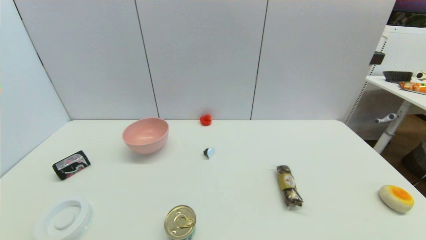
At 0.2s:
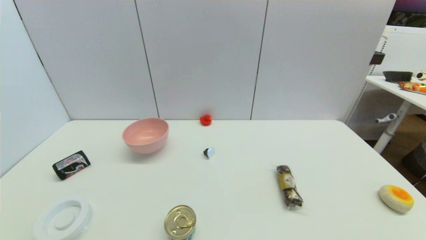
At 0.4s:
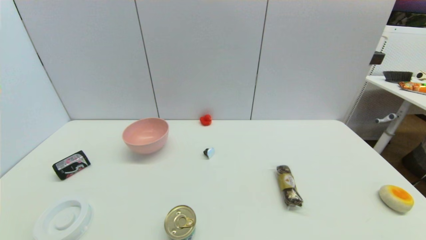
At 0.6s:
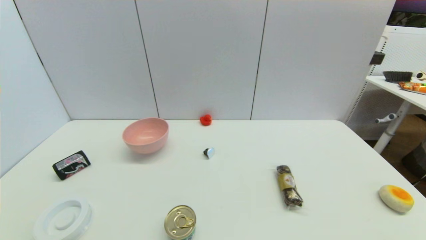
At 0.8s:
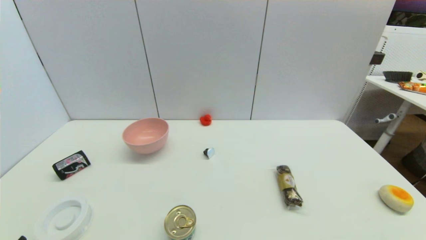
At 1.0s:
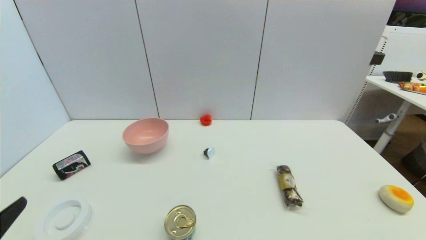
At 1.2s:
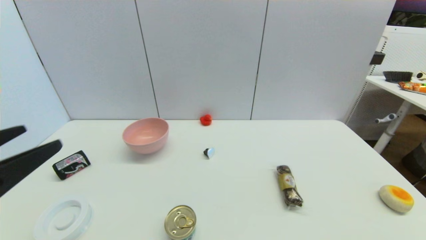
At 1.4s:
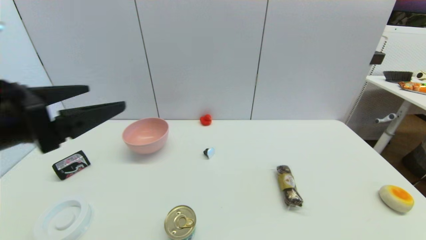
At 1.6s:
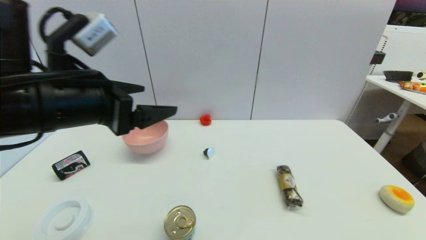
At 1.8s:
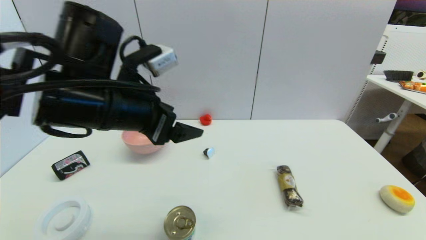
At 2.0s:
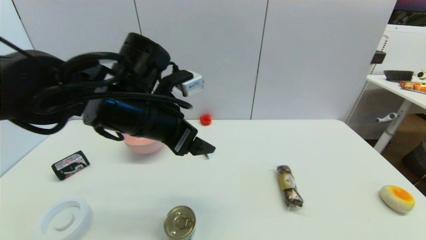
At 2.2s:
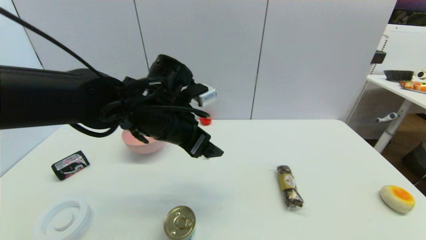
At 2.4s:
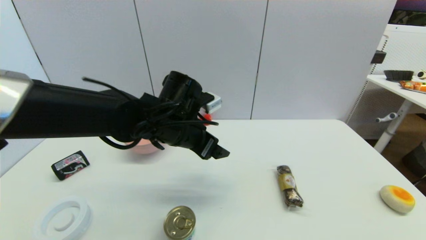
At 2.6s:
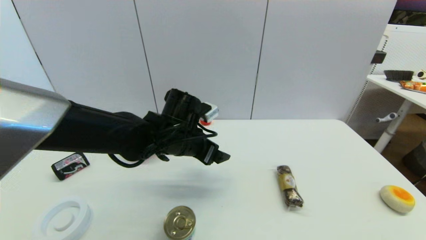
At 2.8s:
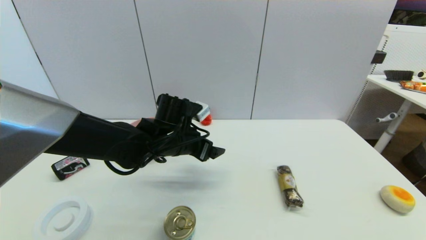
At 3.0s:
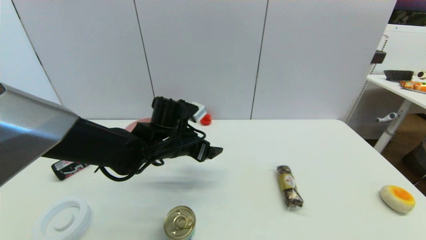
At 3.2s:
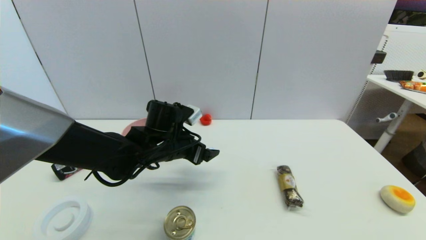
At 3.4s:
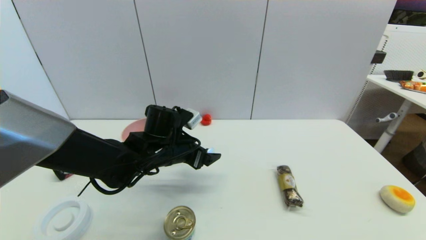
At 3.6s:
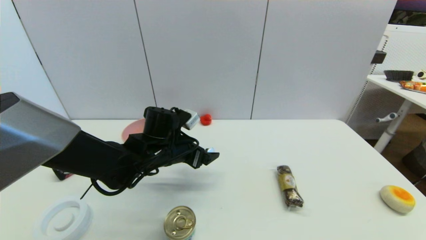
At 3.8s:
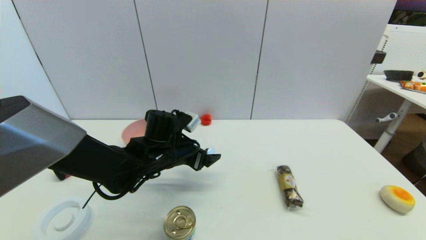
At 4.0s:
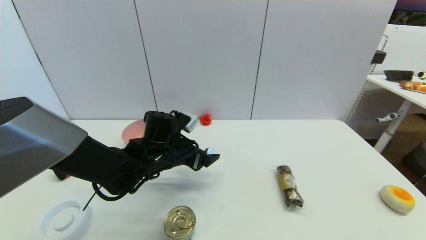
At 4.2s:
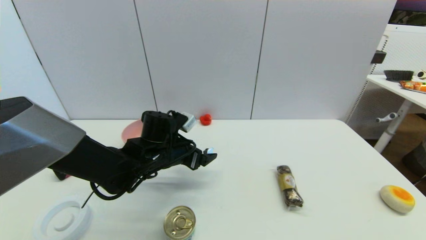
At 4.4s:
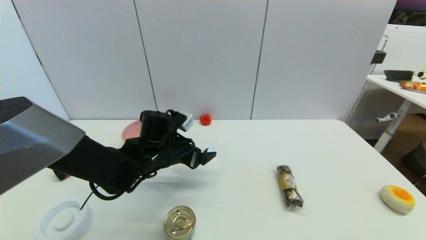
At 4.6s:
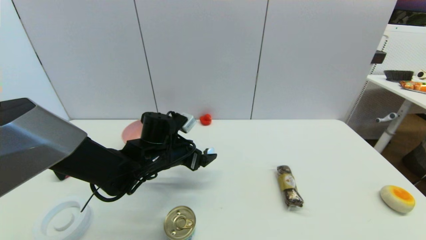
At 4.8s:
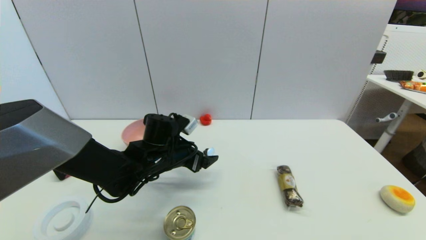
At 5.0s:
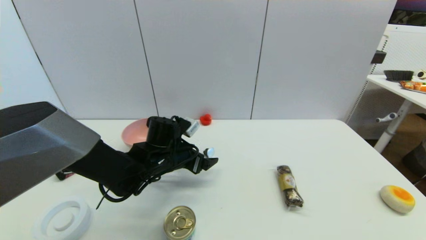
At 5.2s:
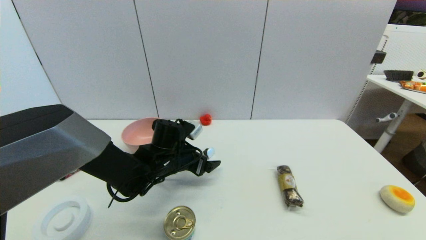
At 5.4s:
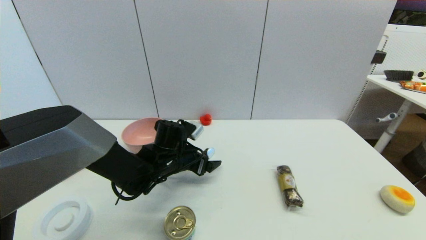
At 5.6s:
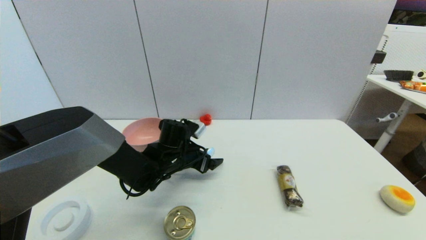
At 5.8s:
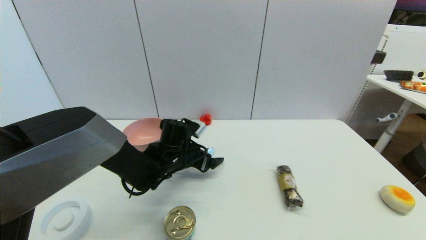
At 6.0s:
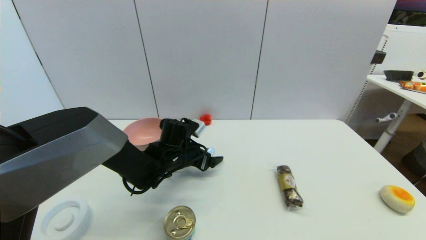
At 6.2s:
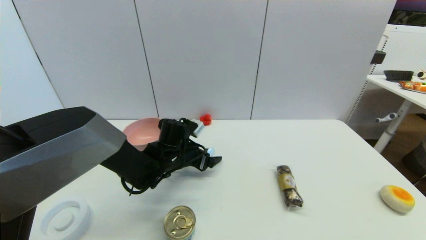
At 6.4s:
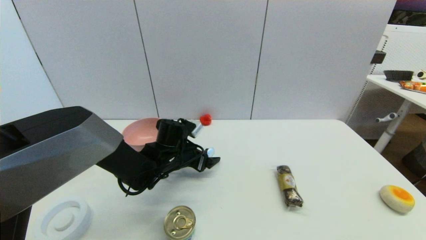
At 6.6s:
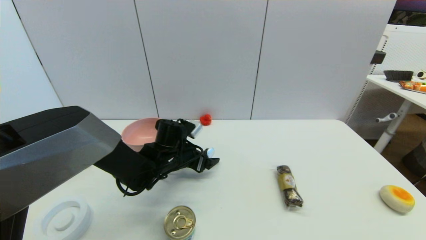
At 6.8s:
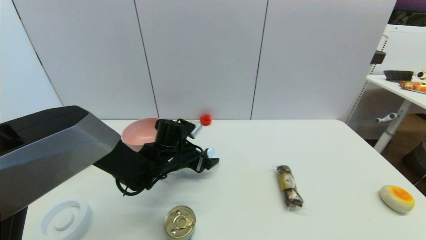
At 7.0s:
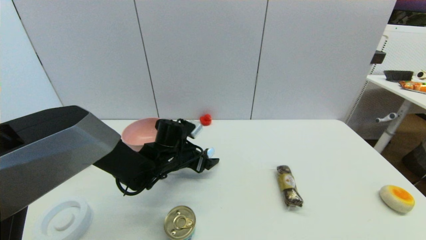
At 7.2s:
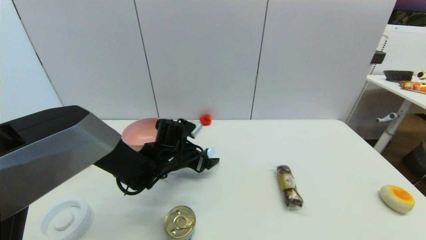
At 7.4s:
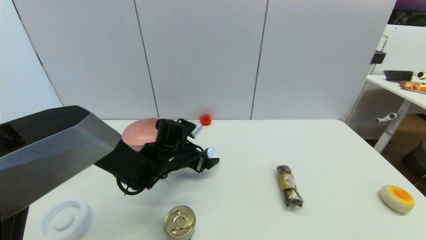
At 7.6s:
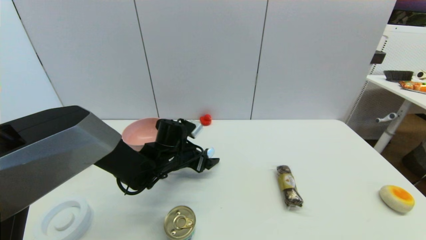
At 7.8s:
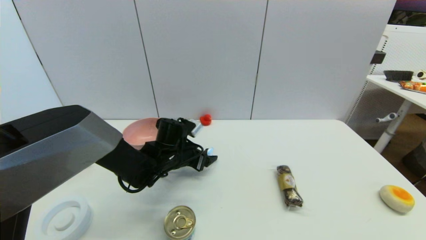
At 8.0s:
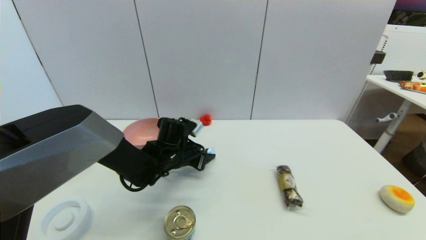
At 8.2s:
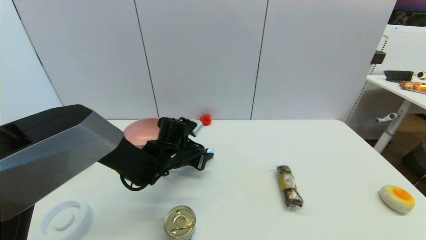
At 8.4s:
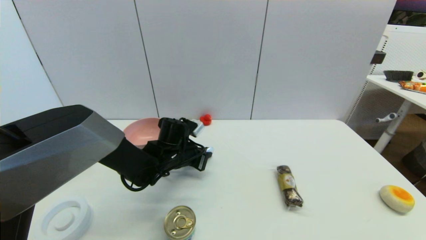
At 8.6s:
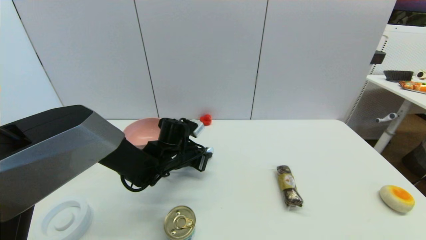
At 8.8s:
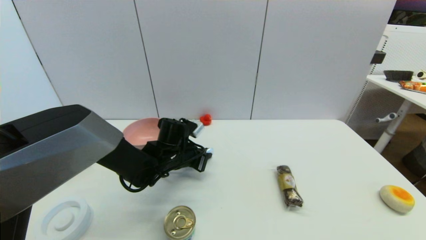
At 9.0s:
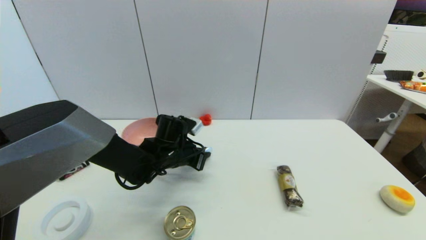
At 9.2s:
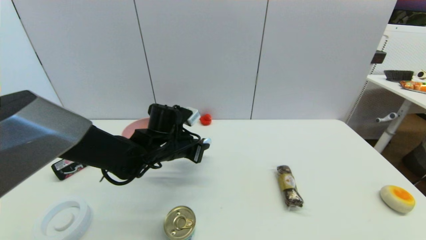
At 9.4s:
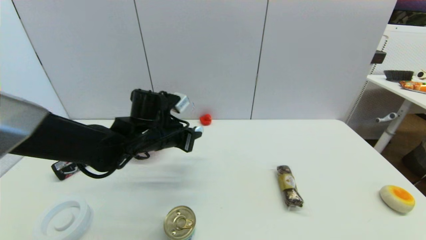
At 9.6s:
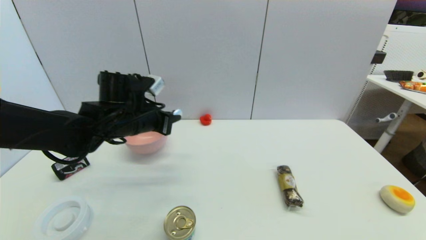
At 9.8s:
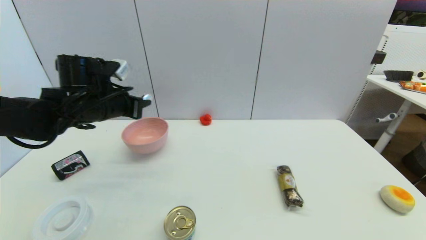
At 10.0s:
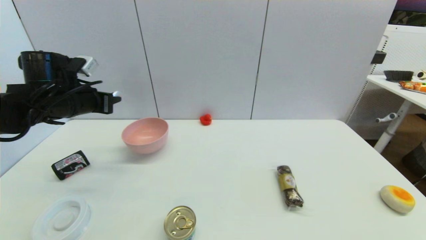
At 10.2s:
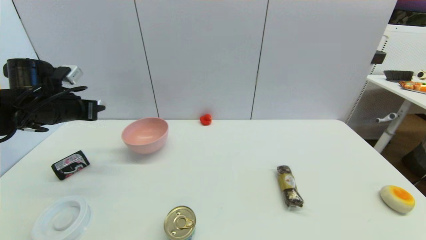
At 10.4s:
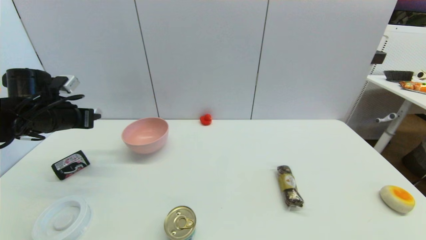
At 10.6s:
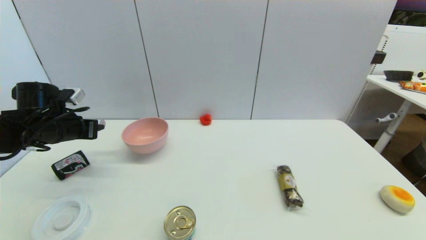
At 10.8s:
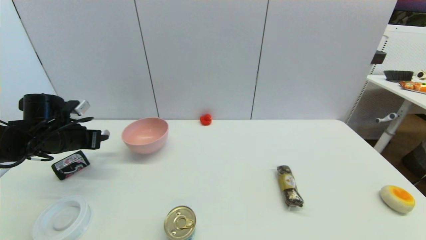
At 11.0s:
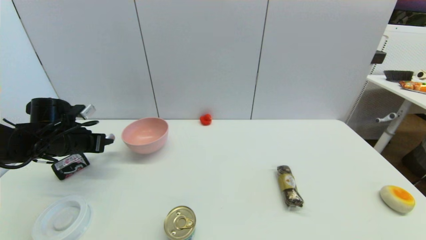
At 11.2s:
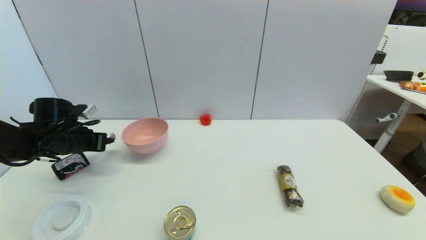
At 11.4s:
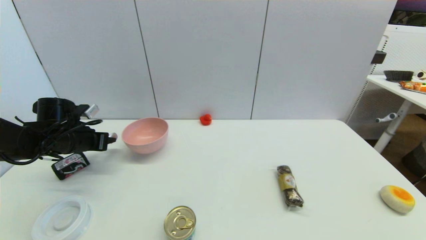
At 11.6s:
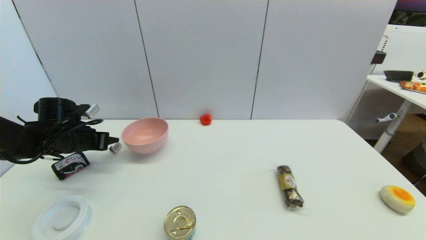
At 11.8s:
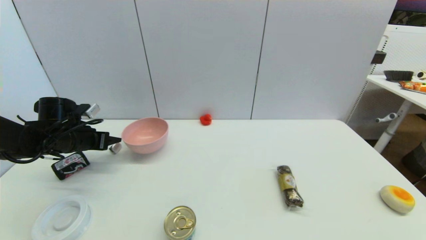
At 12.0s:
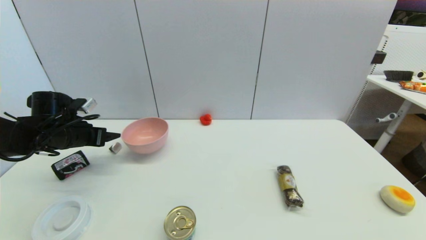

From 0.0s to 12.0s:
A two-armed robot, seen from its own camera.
Step, from 0.8s to 8.2s: Grasp the coffee capsule with left gripper.
Step, from 8.4s to 11.6s: Place the coffee capsule on the table with left gripper.
From 0.0s to 1.6s: The left gripper heads upward, forward and to the right, covering about 35 cm.
From 1.6s to 3.0s: The left gripper heads downward, forward and to the right, covering some 20 cm.
From 3.0s to 4.4s: There are only small adjustments of the grippers.
From 4.4s to 6.0s: The left gripper moves about 5 cm.
From 6.0s to 7.6s: Both grippers stay about where they are.
From 7.6s to 9.0s: The left gripper closes up.
From 9.0s to 10.4s: The left gripper is displaced to the left by about 25 cm.
From 10.4s to 12.0s: The left gripper opens.

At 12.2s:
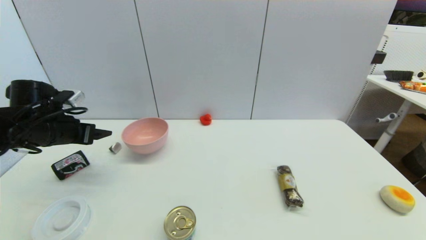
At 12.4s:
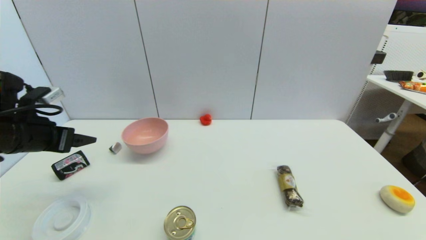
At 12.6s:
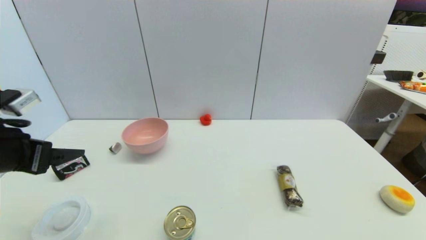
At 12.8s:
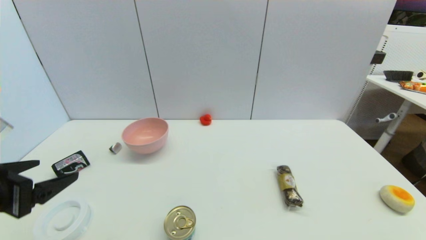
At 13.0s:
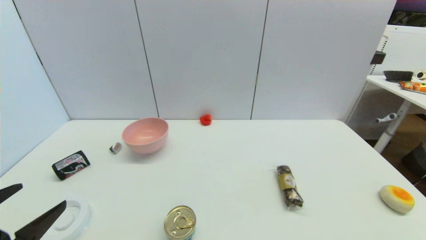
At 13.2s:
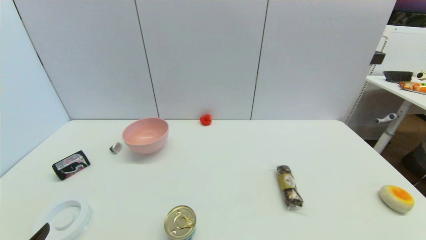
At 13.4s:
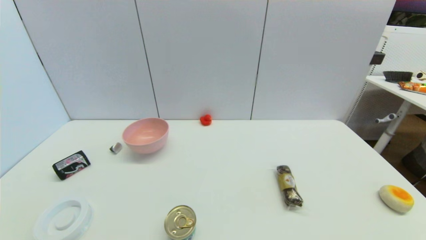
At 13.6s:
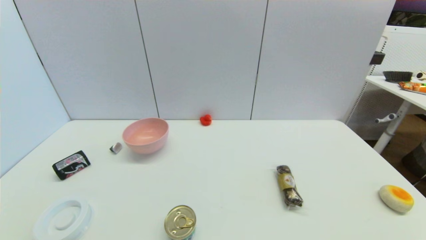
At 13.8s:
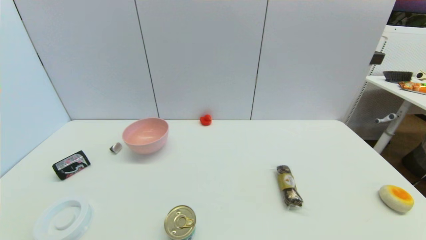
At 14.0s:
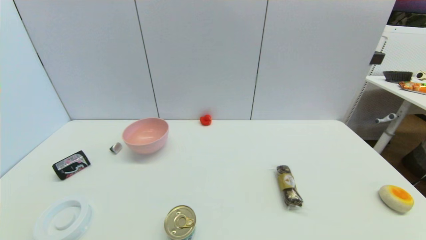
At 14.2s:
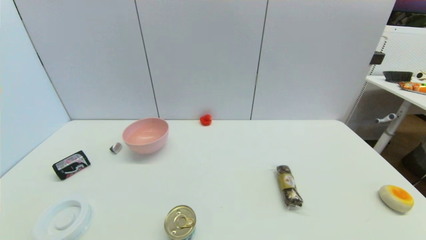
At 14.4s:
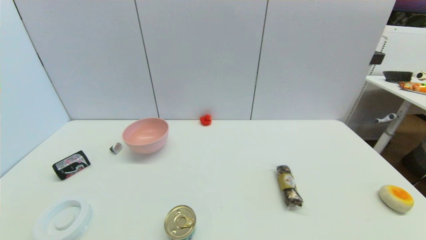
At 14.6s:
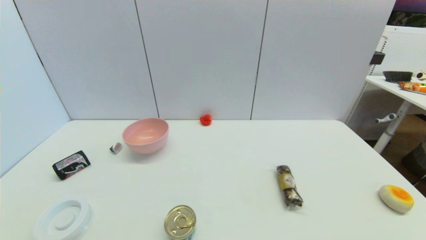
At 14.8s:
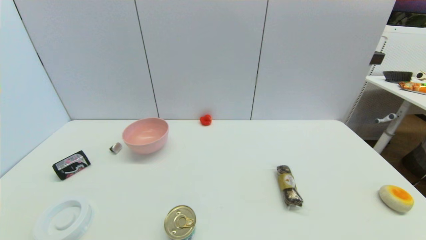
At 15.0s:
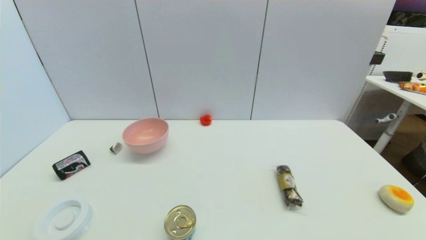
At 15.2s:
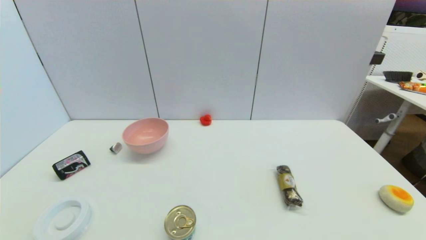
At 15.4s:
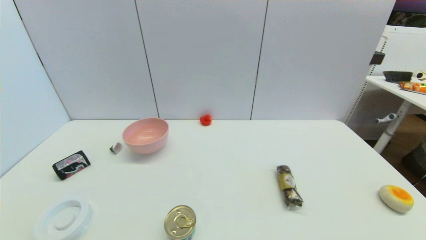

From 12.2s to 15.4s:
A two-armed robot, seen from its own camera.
From 12.2s to 13.8s: The left gripper heads backward, covering some 30 cm.
From 13.8s to 15.4s: Both grippers stay about where they are.
